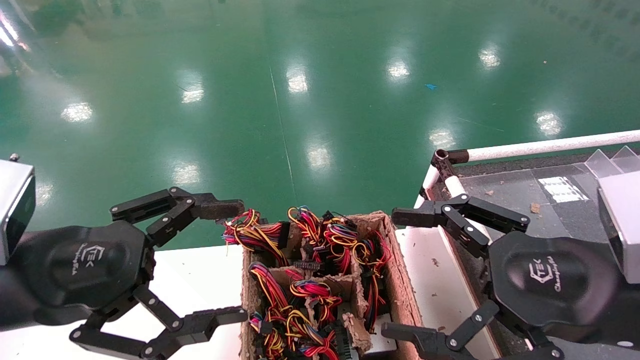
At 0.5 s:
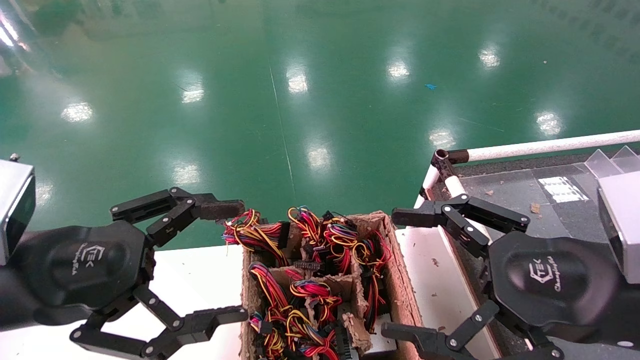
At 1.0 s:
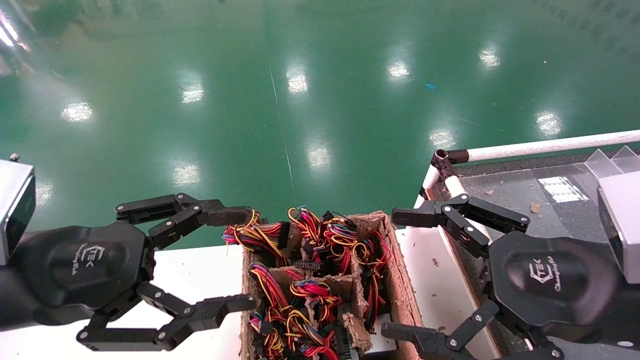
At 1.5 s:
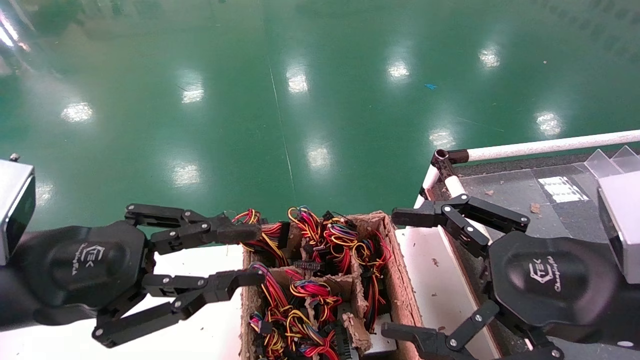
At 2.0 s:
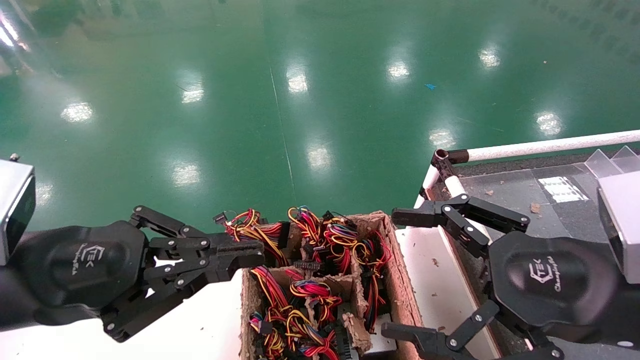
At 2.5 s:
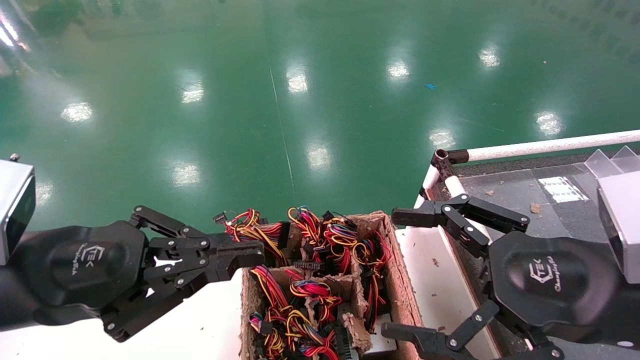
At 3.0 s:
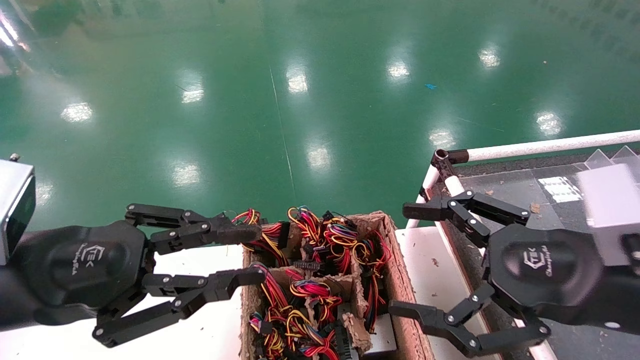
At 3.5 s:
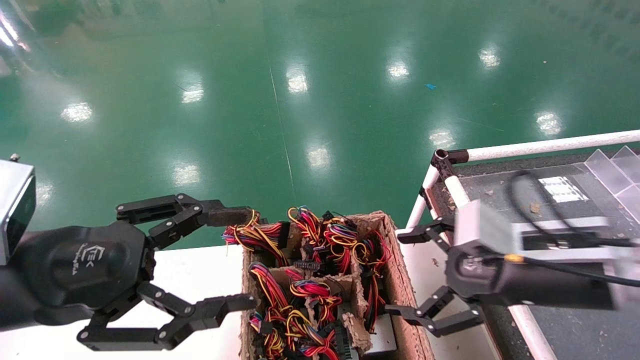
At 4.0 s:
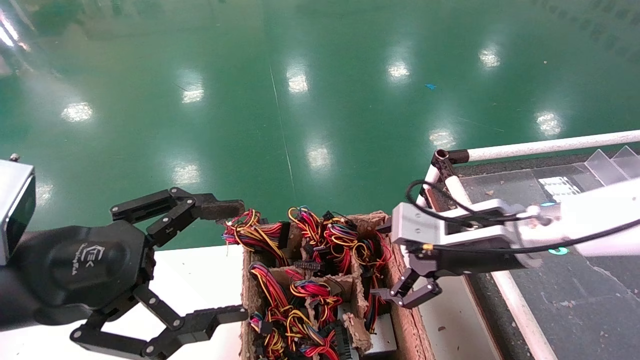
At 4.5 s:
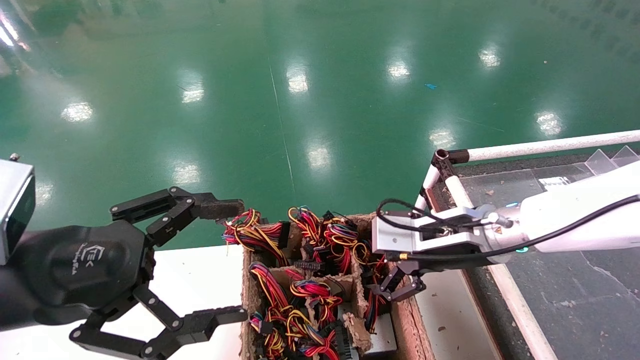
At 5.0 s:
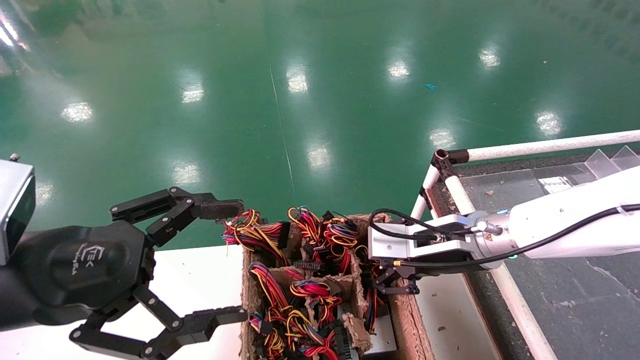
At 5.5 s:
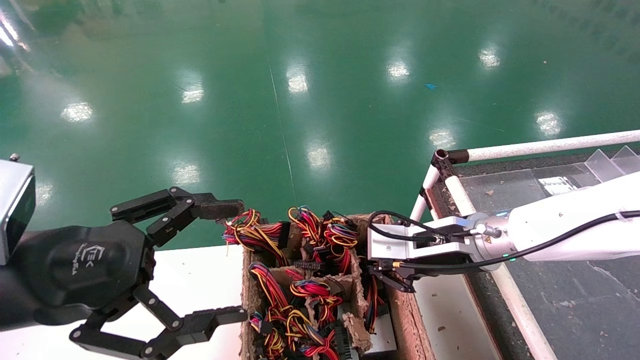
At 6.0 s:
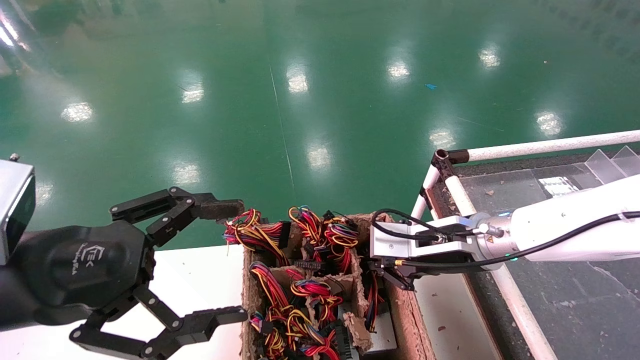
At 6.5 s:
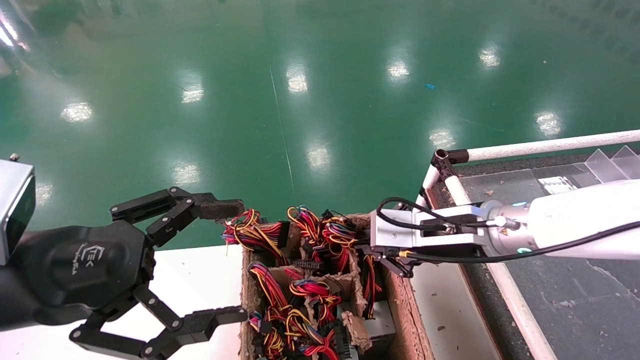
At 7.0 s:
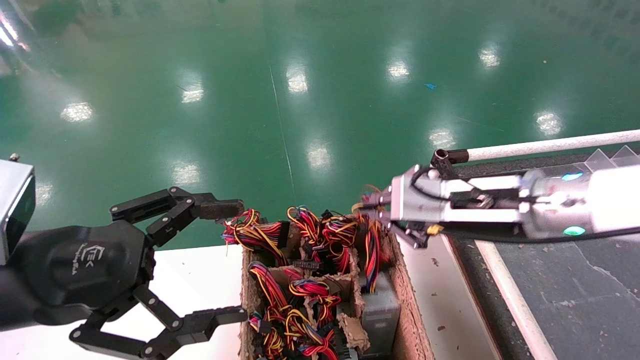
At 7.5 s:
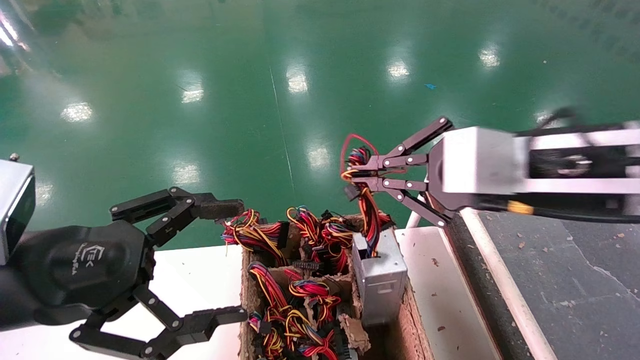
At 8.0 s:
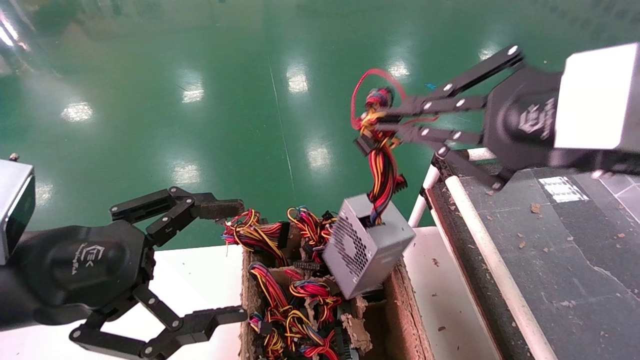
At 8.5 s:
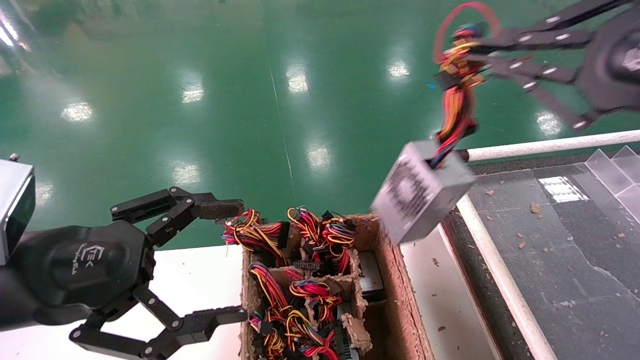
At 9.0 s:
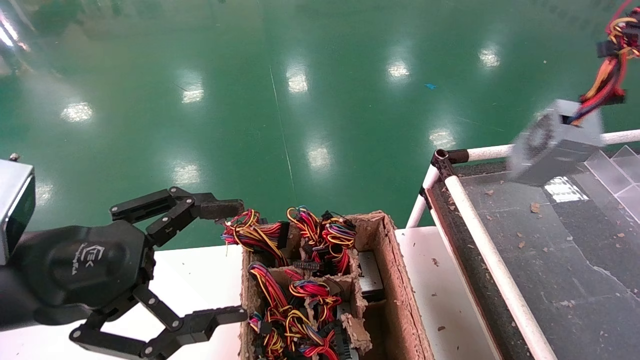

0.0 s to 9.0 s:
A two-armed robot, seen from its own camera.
Step, 3.5 to 5.5 s: Grab and lift the power supply from the large box.
0.0 to 2.0 s: The left gripper closes its fingers.
2.0 to 4.5 s: The left gripper opens up. Meanwhile the right gripper goes about 20 cm forward and to the left.
4.5 to 7.0 s: The right gripper is displaced upward by approximately 5 cm, and closes.
7.0 to 9.0 s: The right gripper moves to the right, upward and backward, some 25 cm.

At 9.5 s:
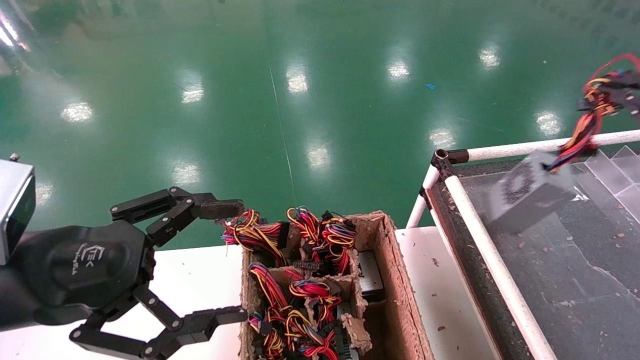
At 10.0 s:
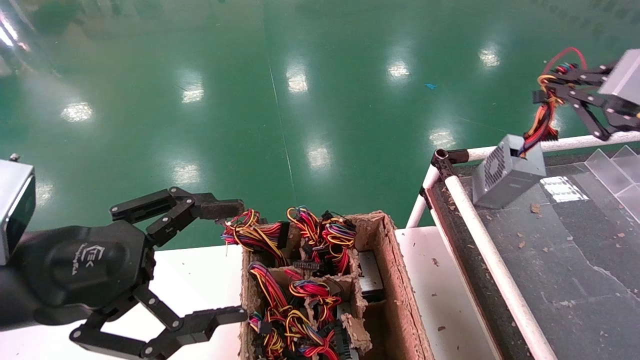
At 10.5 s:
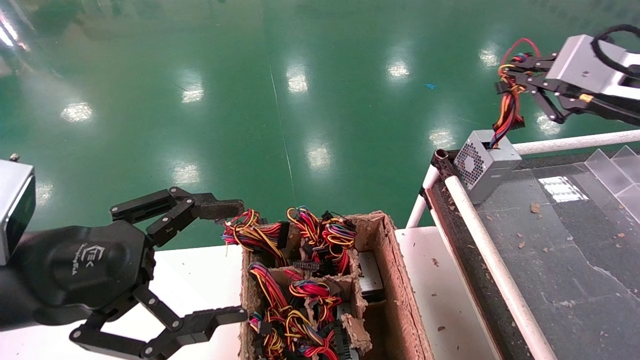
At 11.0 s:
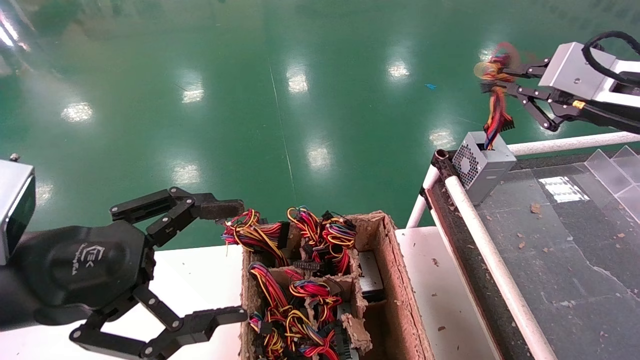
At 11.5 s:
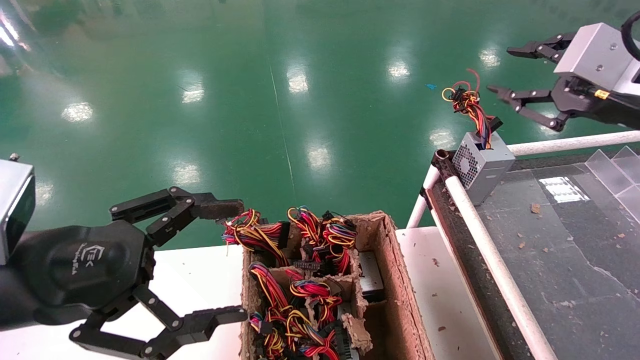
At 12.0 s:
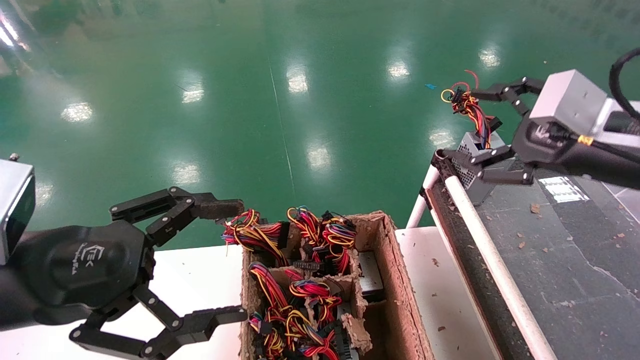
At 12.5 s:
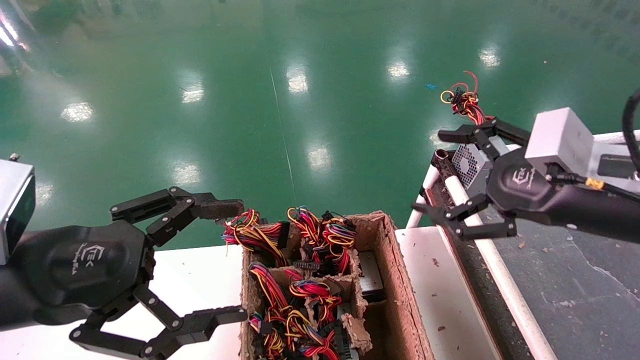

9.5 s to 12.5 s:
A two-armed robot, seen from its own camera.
9.5 to 11.0 s: The right gripper goes approximately 10 cm to the left and forward.
11.0 to 12.5 s: The right gripper heads downward, to the left and backward, covering about 10 cm, and opens its fingers.

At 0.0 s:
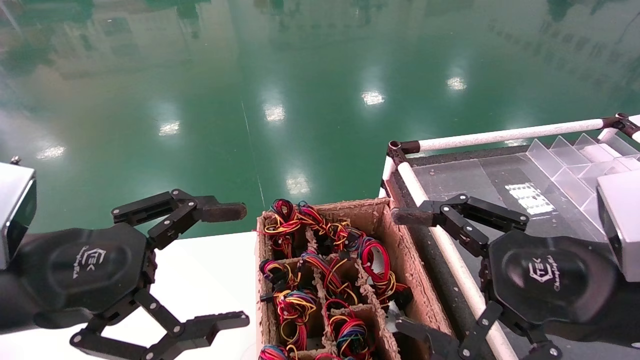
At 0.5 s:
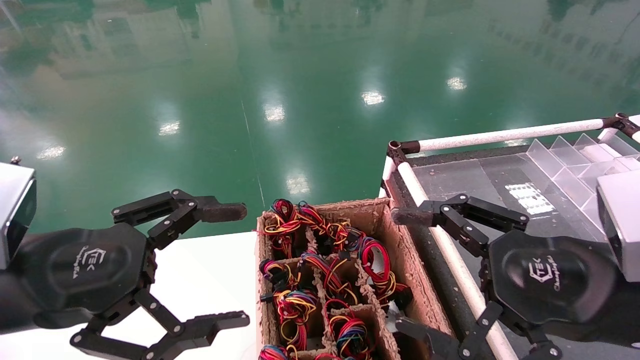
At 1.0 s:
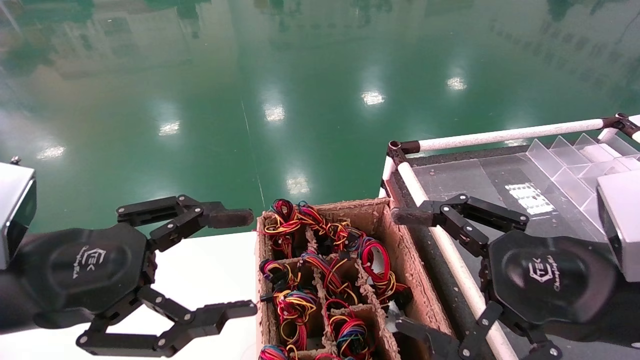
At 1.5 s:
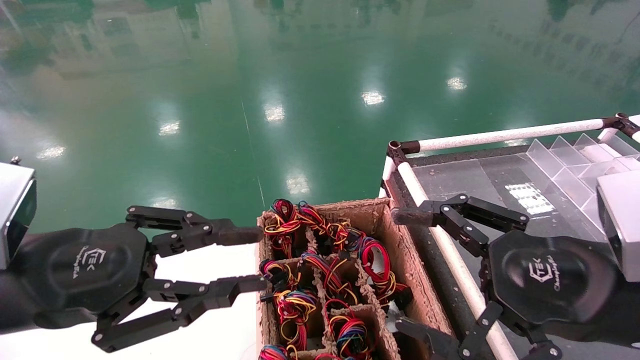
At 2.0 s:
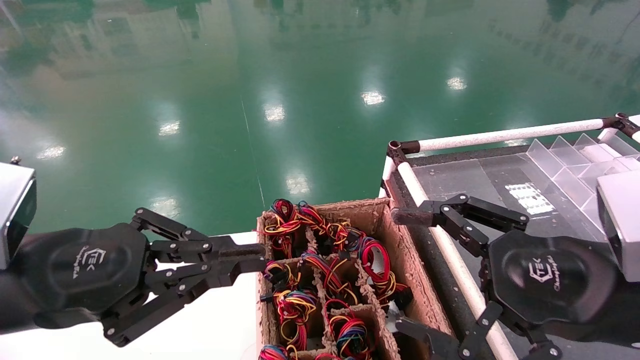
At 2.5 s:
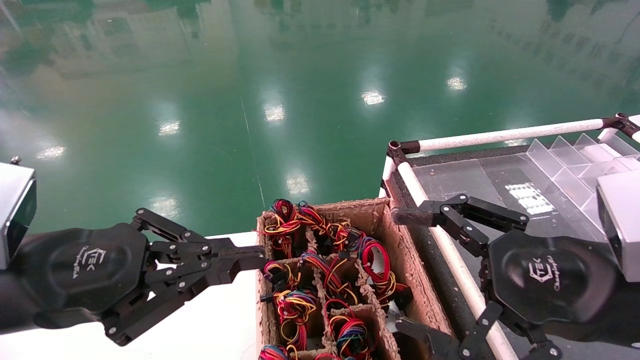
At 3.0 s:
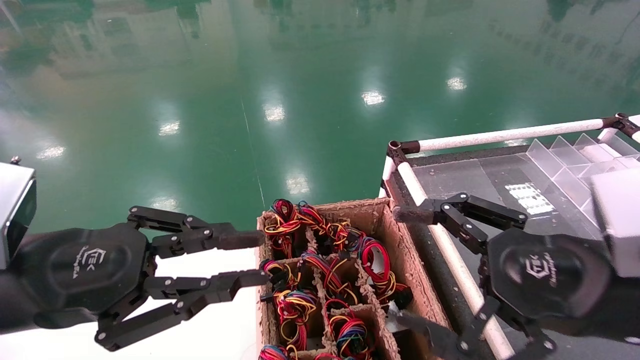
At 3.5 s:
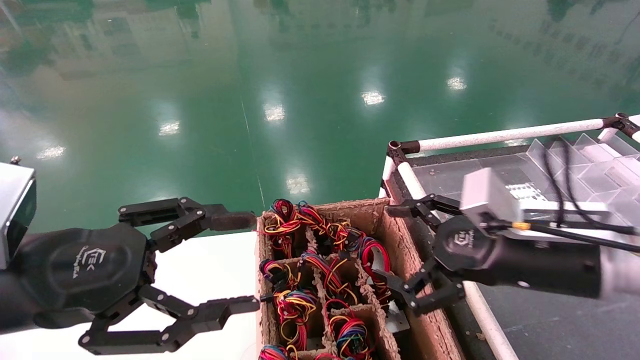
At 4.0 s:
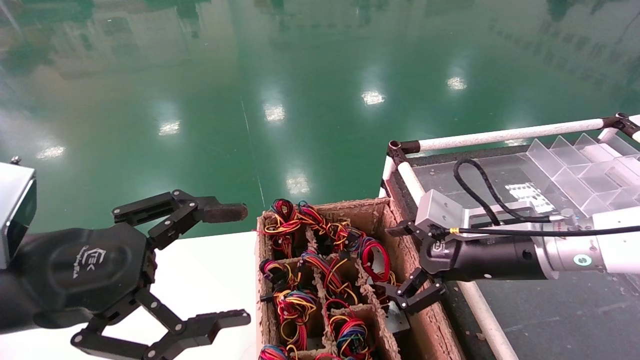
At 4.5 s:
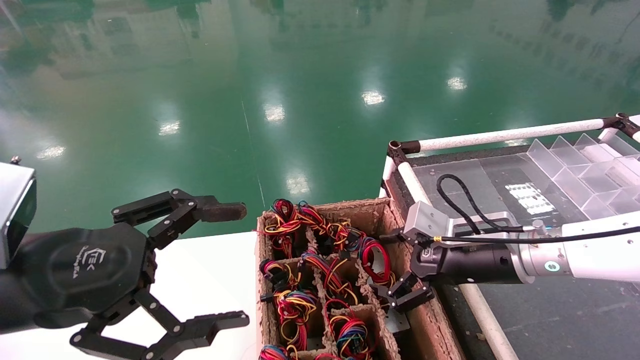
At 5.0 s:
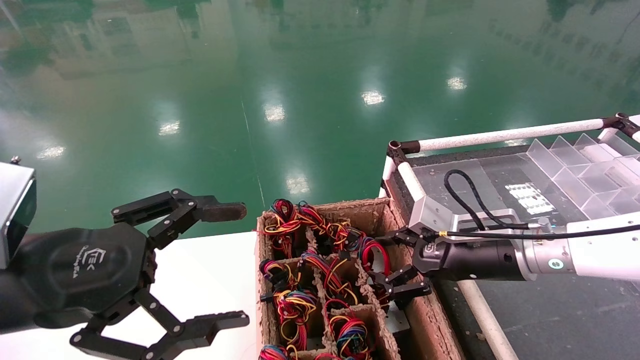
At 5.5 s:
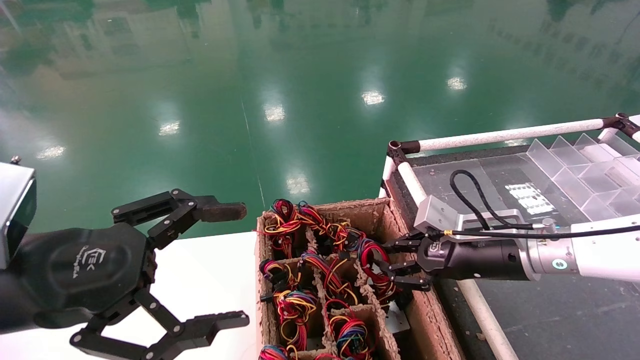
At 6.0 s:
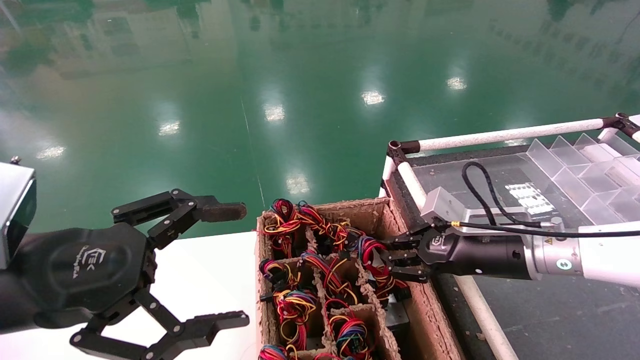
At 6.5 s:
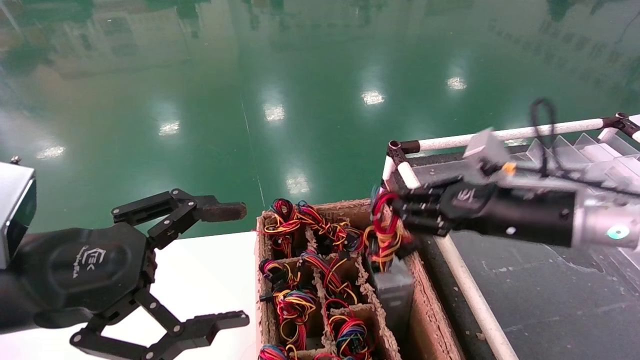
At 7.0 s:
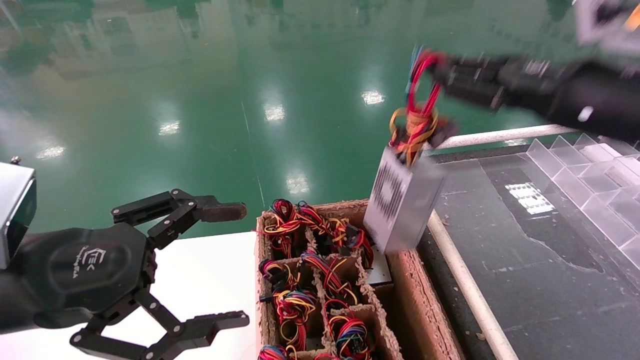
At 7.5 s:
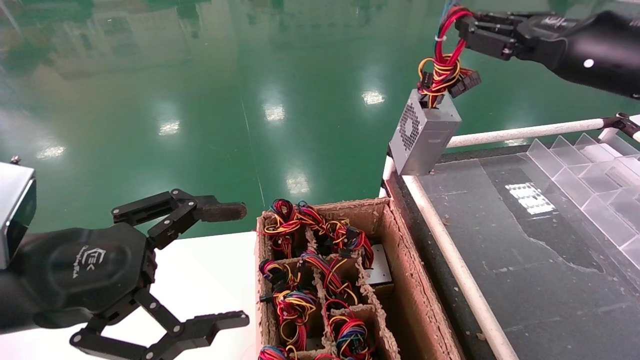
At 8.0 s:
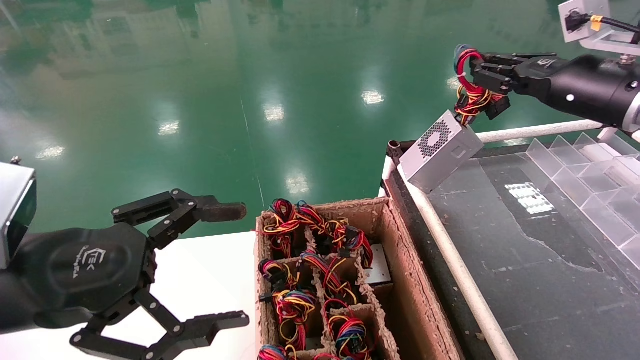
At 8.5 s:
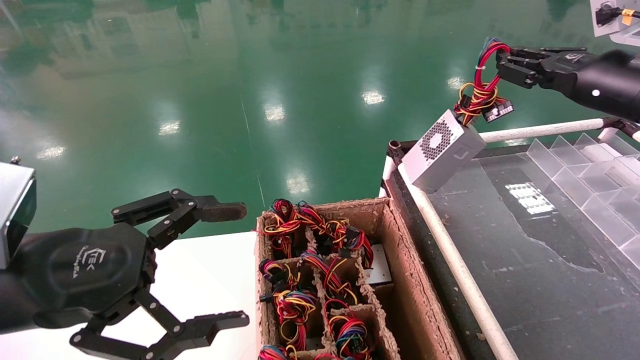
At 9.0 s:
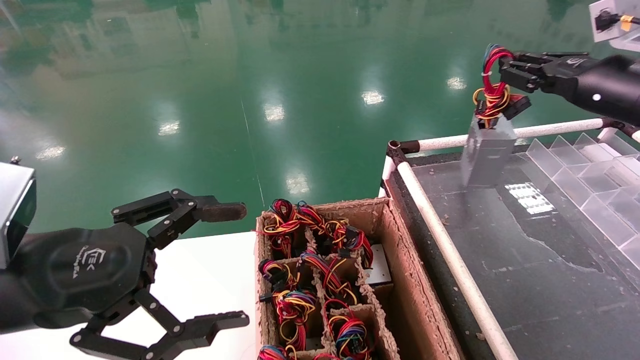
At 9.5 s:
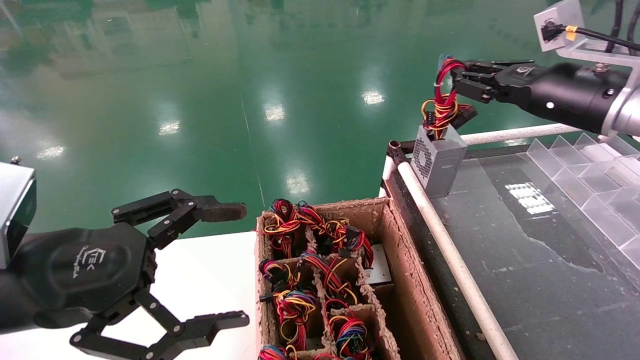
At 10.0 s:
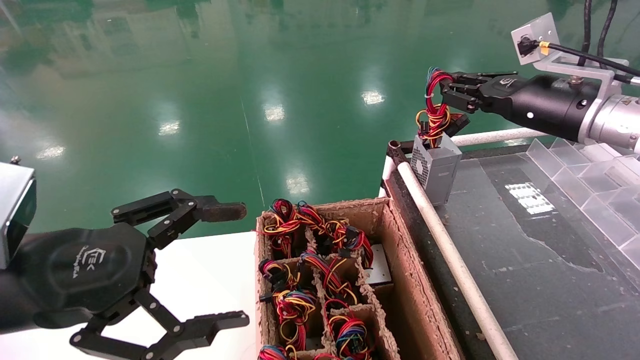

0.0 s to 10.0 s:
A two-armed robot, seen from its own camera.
Step, 2.0 to 6.0 s: Grab and lift the power supply from the large box.
0.0 to 2.0 s: The left gripper closes.
2.0 to 4.0 s: The left gripper opens up. Meanwhile the right gripper moves forward, about 15 cm.
4.0 to 6.0 s: The right gripper closes up.
6.0 to 8.0 s: The right gripper travels upward and to the right by roughly 20 cm.
8.0 to 10.0 s: The grippers stay close to where they were, moving slightly.
